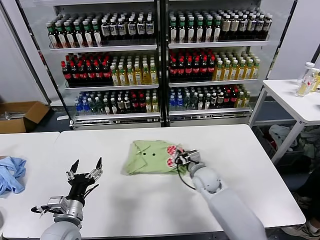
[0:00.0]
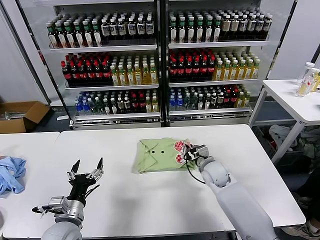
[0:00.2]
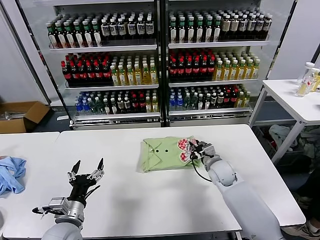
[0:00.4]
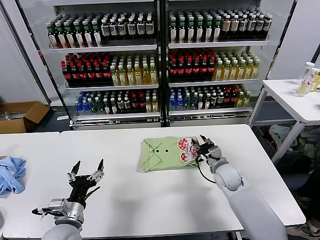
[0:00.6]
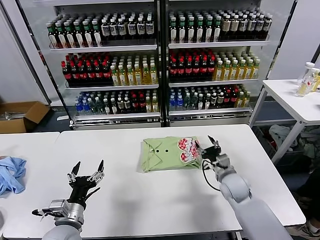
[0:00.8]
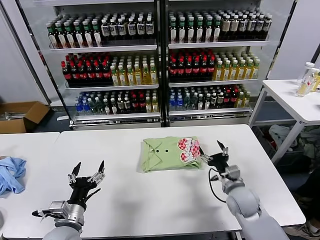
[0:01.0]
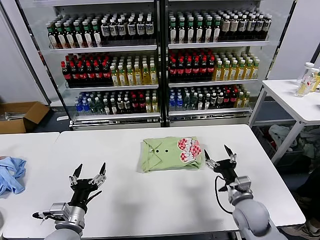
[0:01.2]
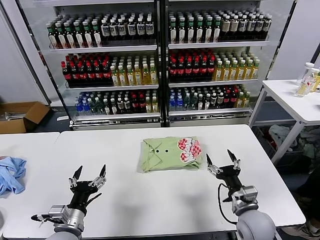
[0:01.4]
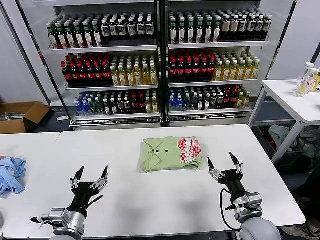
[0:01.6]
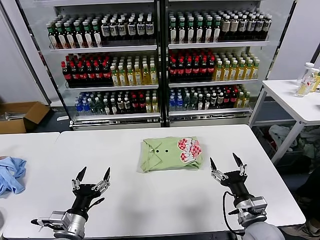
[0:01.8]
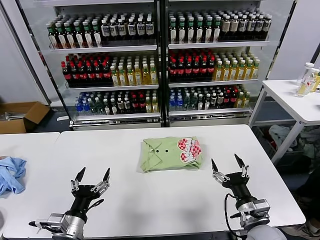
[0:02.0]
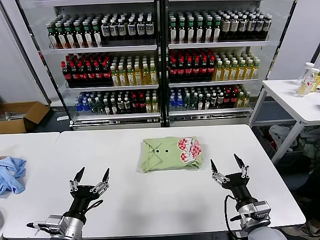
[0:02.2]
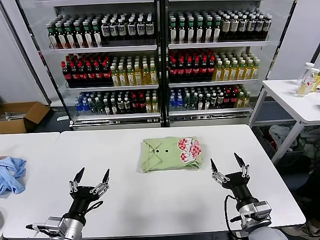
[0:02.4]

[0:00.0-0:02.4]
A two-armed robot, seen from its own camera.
Task of the whole recording: fold and organize the clothes.
0:00.0 to 0:01.2: The right gripper shifts approximately 15 cm to the right and backward, and opens up.
0:01.2 to 0:02.4: The right gripper travels backward by about 10 cm.

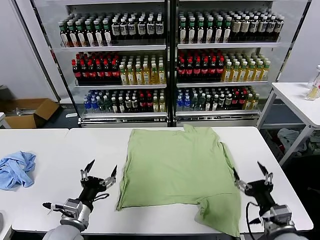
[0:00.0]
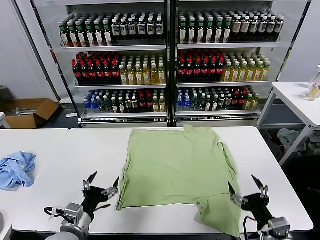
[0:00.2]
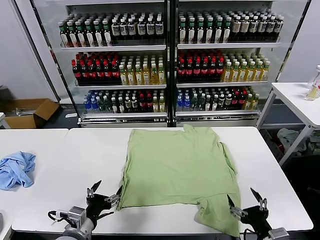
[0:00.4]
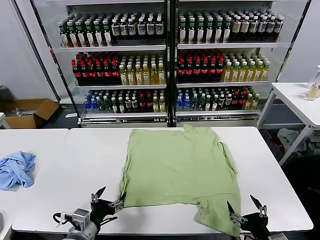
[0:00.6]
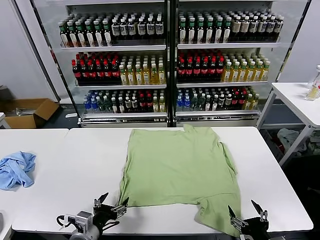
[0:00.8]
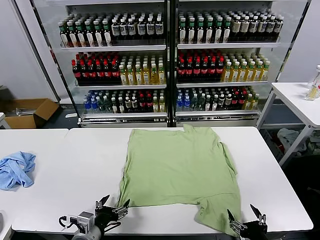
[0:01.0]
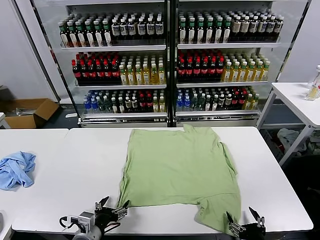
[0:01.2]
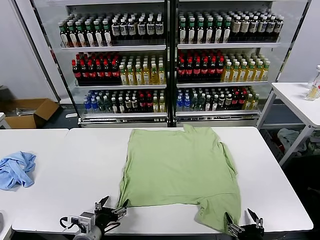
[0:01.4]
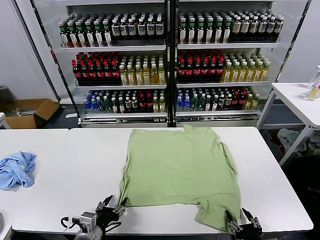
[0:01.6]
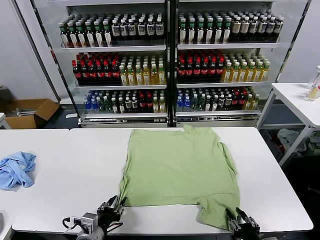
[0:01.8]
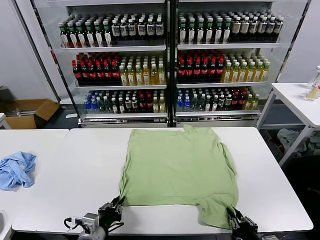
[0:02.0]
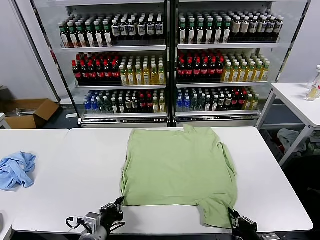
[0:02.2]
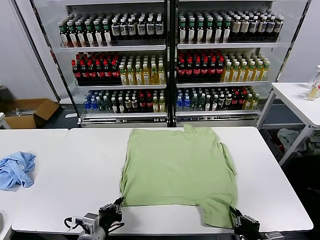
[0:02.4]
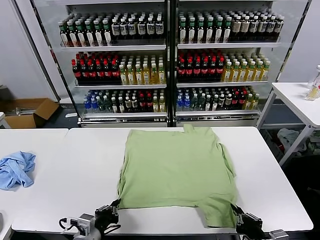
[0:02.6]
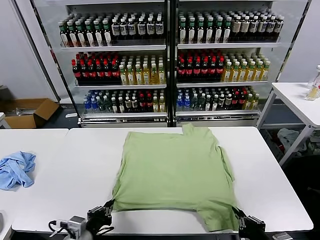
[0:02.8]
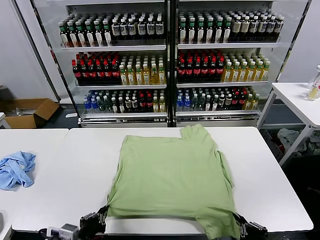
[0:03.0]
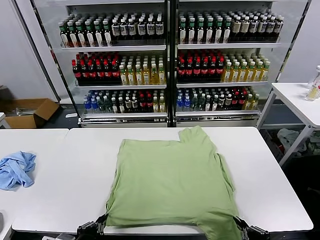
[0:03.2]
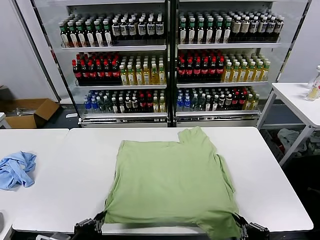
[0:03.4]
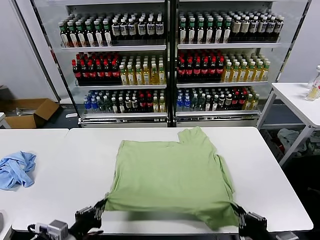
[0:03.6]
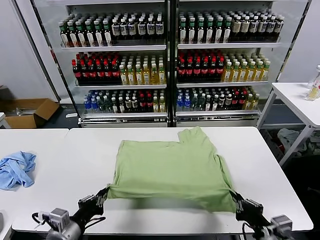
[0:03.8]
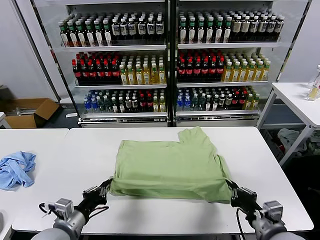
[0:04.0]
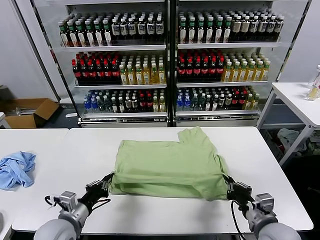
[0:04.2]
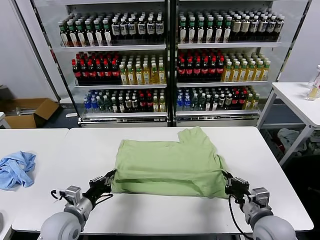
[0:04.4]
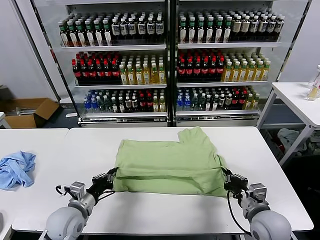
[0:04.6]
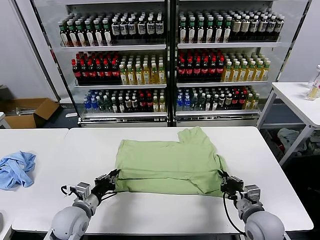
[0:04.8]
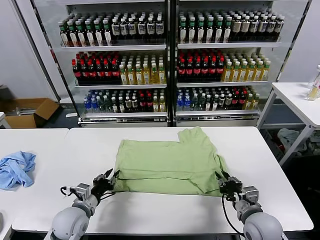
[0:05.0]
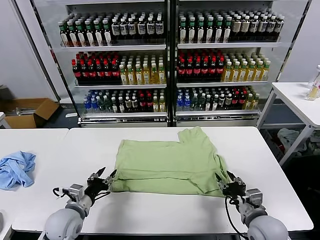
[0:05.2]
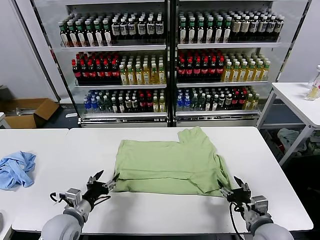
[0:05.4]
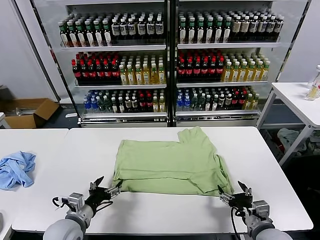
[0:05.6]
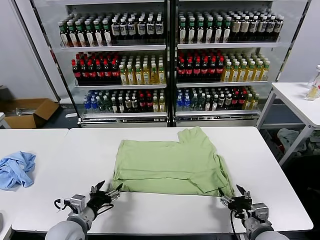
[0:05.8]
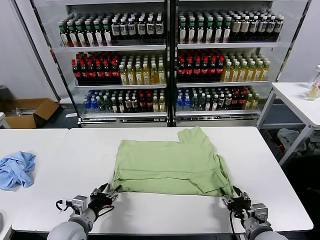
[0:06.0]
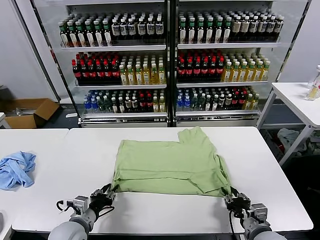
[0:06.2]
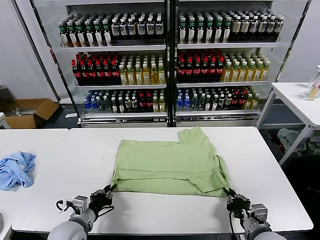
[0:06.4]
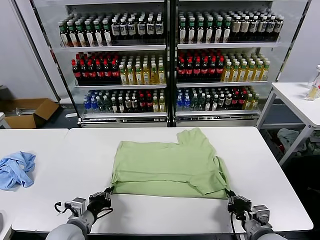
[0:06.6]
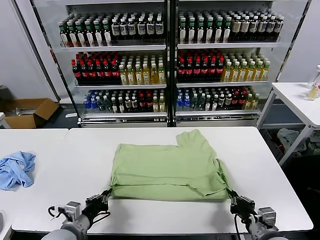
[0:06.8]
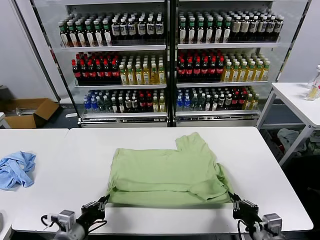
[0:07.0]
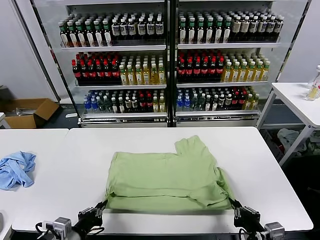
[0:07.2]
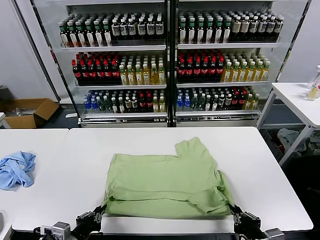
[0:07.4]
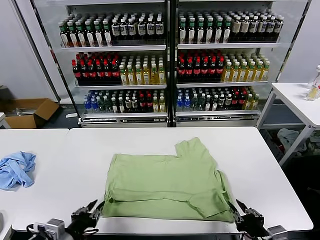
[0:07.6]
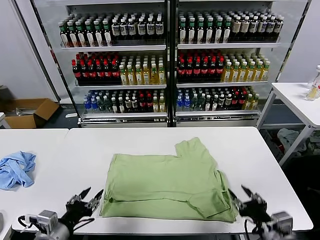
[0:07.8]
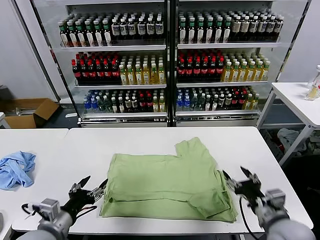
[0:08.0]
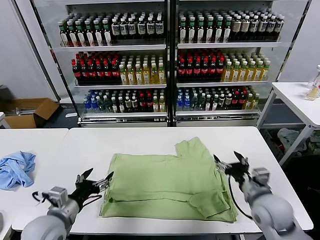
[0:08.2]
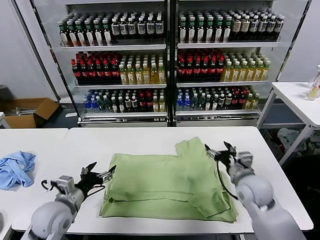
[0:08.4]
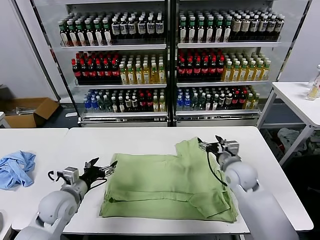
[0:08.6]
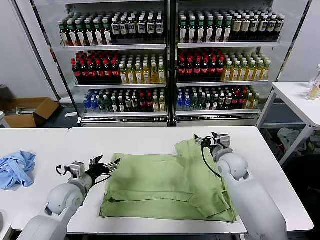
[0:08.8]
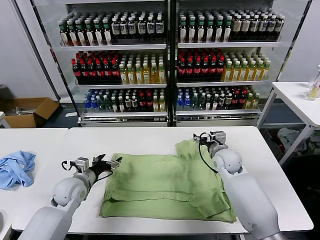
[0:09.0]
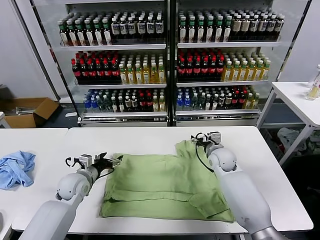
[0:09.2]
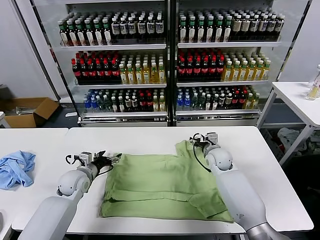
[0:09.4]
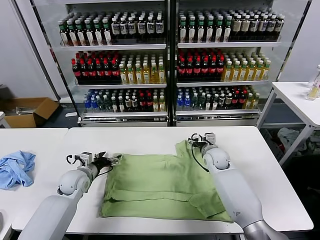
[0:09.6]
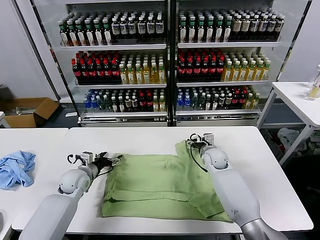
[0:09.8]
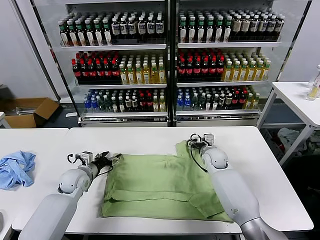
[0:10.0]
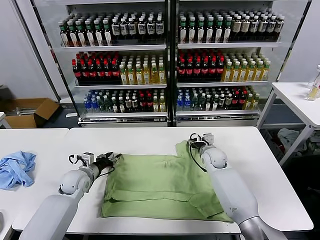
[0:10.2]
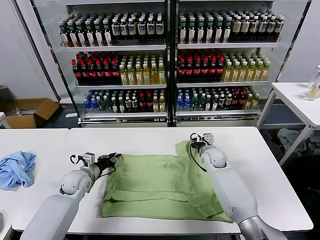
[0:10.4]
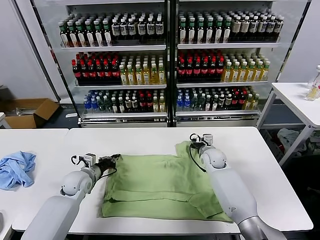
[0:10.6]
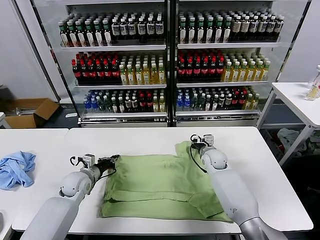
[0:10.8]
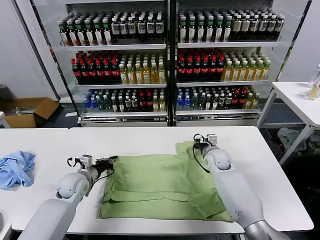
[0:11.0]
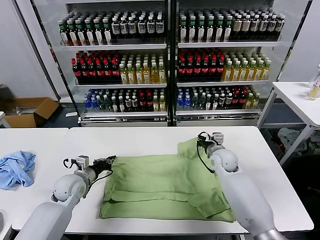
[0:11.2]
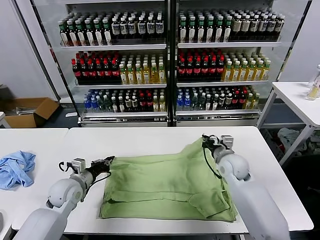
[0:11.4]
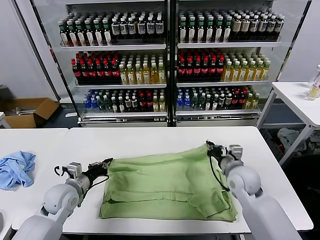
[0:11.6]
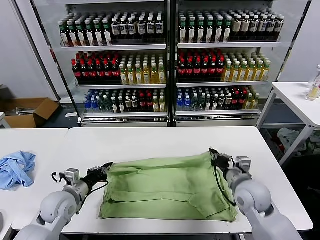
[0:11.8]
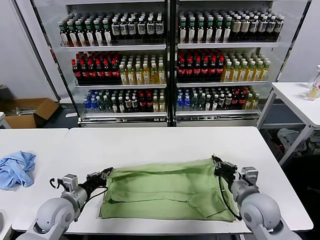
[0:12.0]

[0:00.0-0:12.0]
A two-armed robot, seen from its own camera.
Task of the whole recording: fold and organize the clothes.
Step, 0:00.0 to 0:02.6: use both grippers simultaneously to clamp the lower edge of the clothing fabric.
Step, 0:03.0 to 0:05.2: use both grippers to drag the lower edge of the fabric forward and fold it over the upper edge.
Step, 0:05.4 to 0:07.6: Drag the clothes downward with both gripper.
Step, 0:07.8 to 0:10.6: use both grippers simultaneously to clamp the upper edge of the clothing fabric.
0:01.6 to 0:03.0: The left gripper ends up roughly 5 cm from where it was, and closes up; the right gripper heads upward, covering about 10 cm, and closes up.
0:03.0 to 0:04.4: The grippers both shift forward by some 15 cm.
0:04.4 to 0:06.0: The right gripper changes place by roughly 5 cm, and opens its fingers, while the left gripper opens.
0:06.0 to 0:07.6: The left gripper is displaced backward by roughly 10 cm, and closes up, while the right gripper goes about 10 cm backward and upward, and closes, then opens again.
0:07.6 to 0:09.0: The left gripper travels forward by some 20 cm, and opens; the right gripper is displaced forward by about 35 cm, and opens its fingers.
0:09.0 to 0:10.4: The right gripper travels downward by approximately 5 cm, and closes its fingers. The left gripper goes approximately 5 cm forward, and closes up.
0:10.4 to 0:12.0: The left gripper heads backward, covering some 10 cm, and closes its fingers. Meanwhile the right gripper shifts about 25 cm backward.

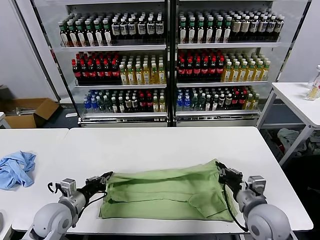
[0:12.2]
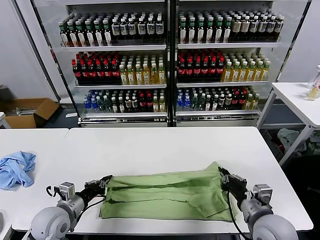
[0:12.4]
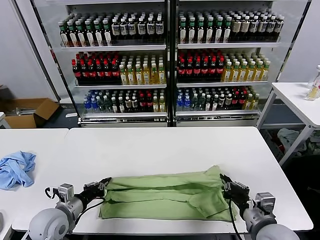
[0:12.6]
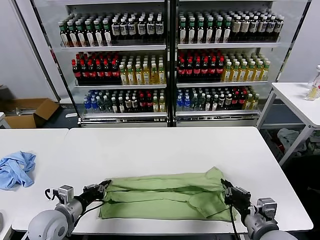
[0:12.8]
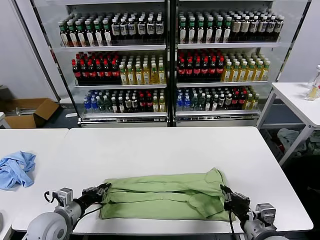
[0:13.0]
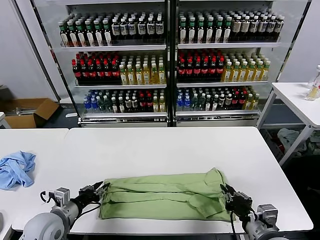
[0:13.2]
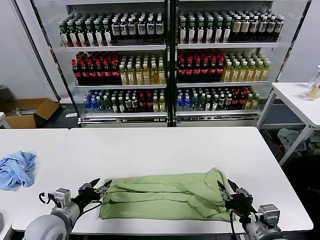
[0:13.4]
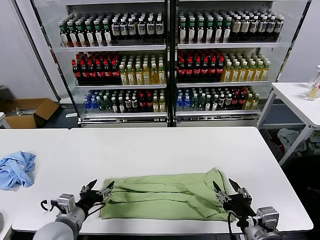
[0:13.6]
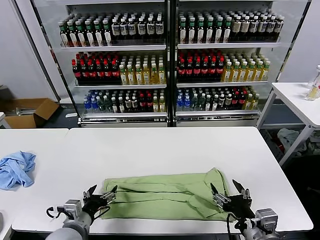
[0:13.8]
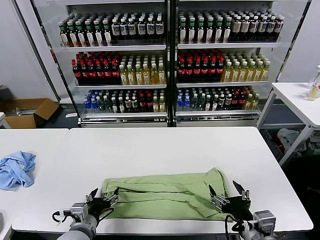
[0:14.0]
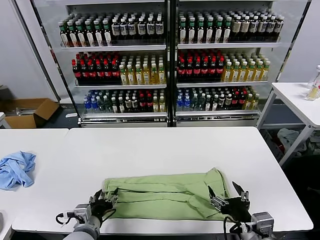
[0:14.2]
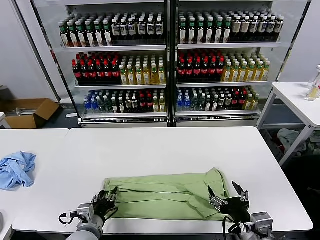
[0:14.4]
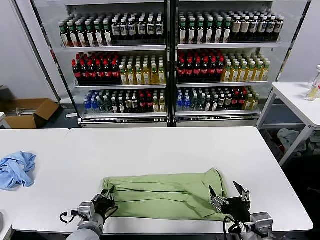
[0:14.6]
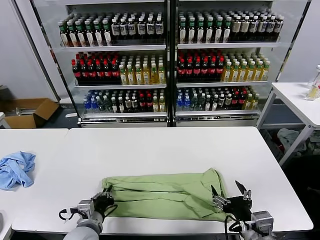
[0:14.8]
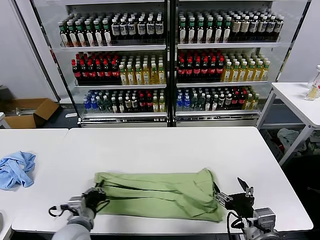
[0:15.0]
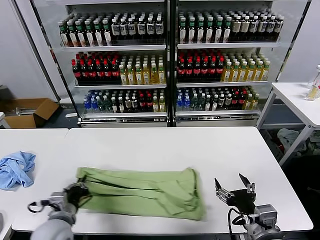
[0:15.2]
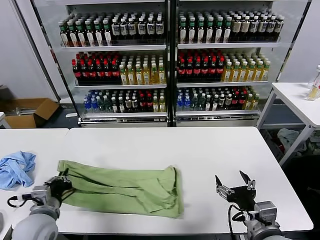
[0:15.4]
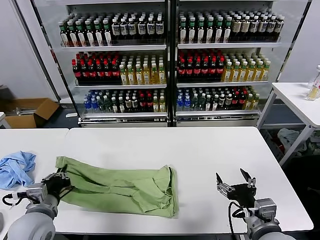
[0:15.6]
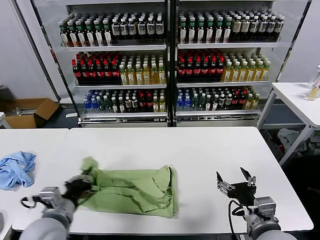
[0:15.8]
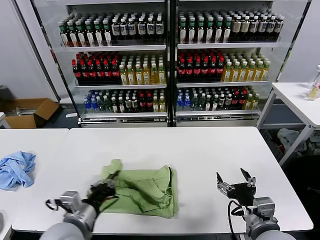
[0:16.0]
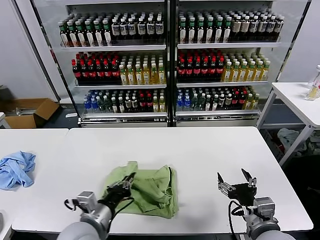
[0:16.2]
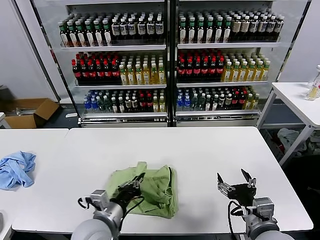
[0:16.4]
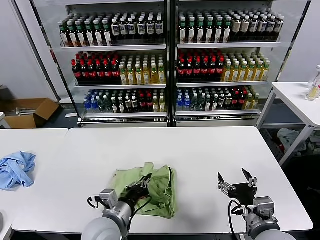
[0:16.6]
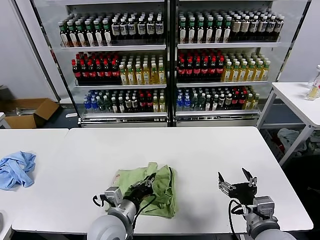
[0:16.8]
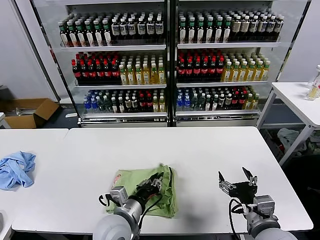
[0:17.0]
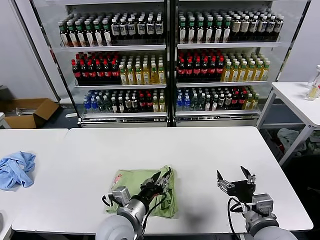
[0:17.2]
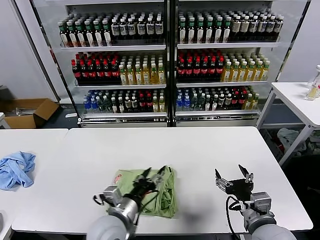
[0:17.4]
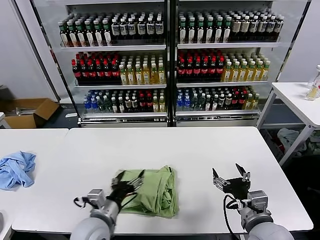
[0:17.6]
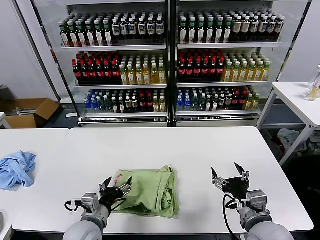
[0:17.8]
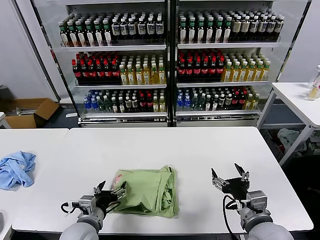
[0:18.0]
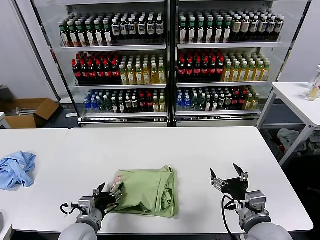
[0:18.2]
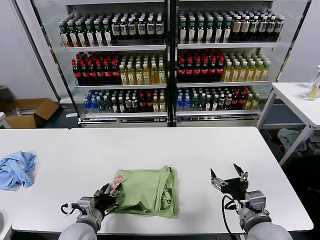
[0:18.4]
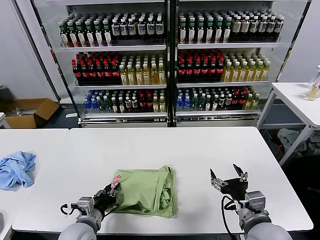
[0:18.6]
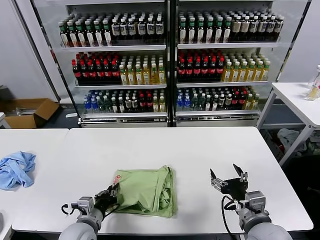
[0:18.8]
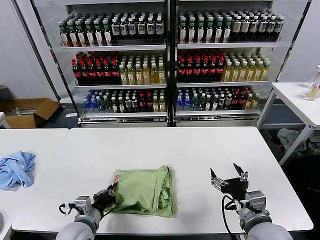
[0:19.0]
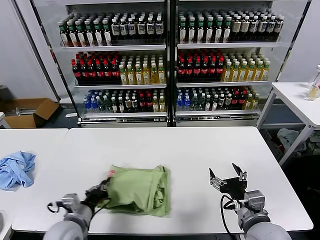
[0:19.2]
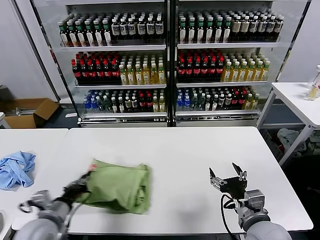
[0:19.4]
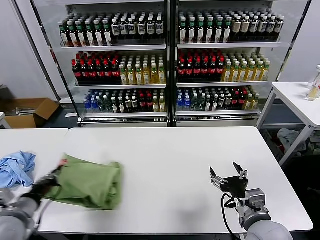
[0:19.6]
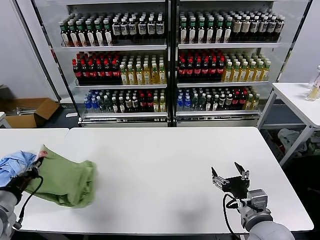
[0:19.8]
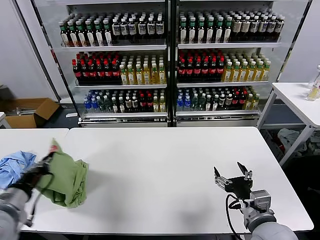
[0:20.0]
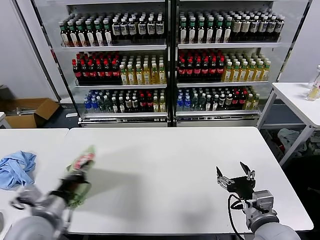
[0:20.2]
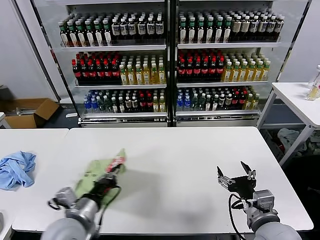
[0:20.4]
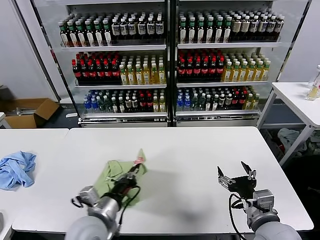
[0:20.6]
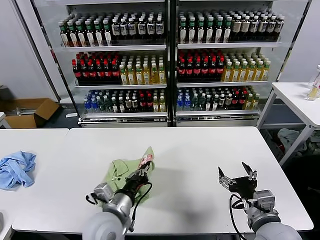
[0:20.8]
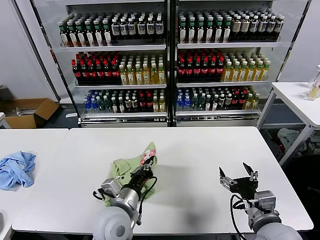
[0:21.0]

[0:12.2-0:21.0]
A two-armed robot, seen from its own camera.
Task of the whole recording: fold and organize the clothes.
Step, 0:13.4 to 0:14.6: use the left gripper to clamp the left edge of the fabric.
Step, 0:15.0 to 0:17.2: use the left gripper to drag the left edge of the fabric to the left and folds it over the right edge.
0:12.2 to 0:13.6: The left gripper heads backward, covering about 5 cm, and opens up; the right gripper moves backward, some 10 cm, and opens up.
0:13.6 to 0:15.2: The left gripper closes its fingers.
0:15.2 to 0:16.6: The left gripper moves to the right, about 15 cm.
0:16.6 to 0:18.0: The left gripper is displaced to the left by roughly 5 cm, and opens up.
0:18.0 to 0:19.6: The left gripper is displaced to the left and upward by approximately 15 cm, and closes its fingers.
0:19.6 to 0:21.0: The left gripper travels to the right by roughly 25 cm.
